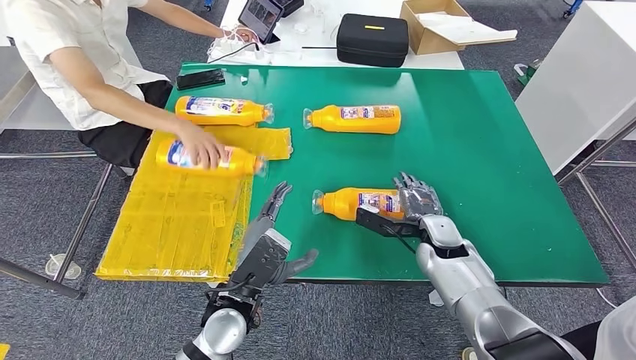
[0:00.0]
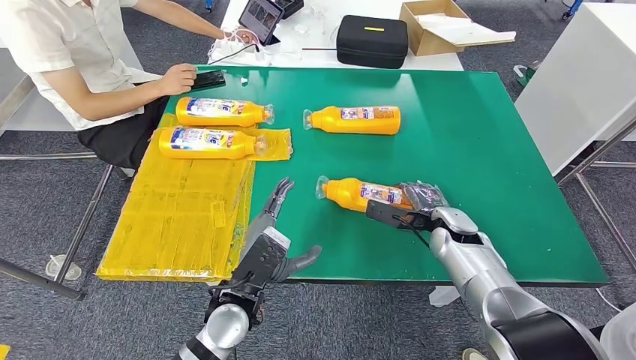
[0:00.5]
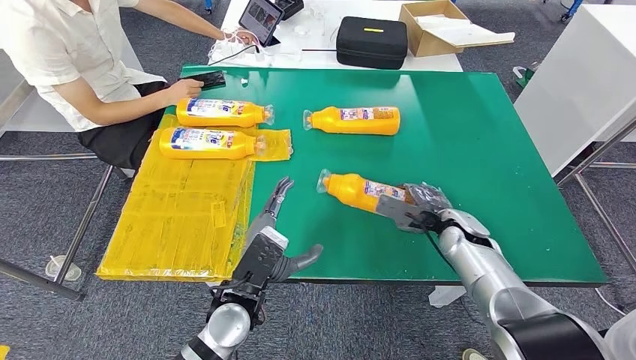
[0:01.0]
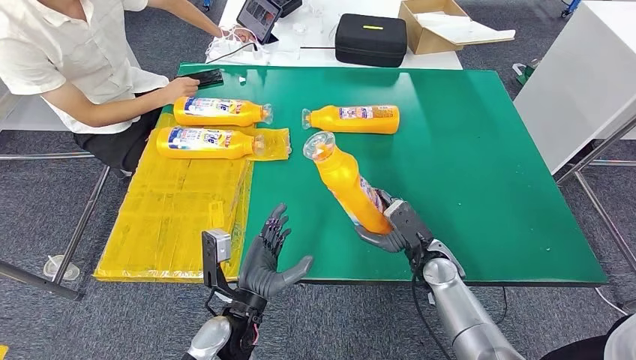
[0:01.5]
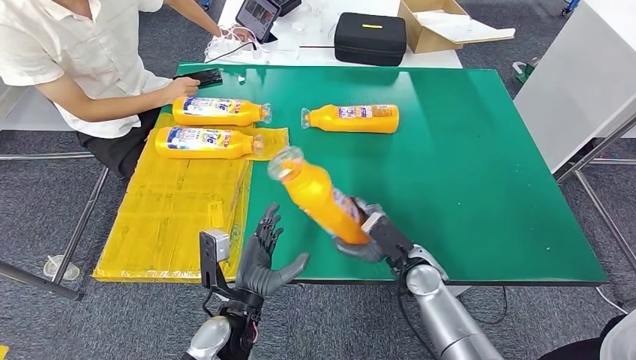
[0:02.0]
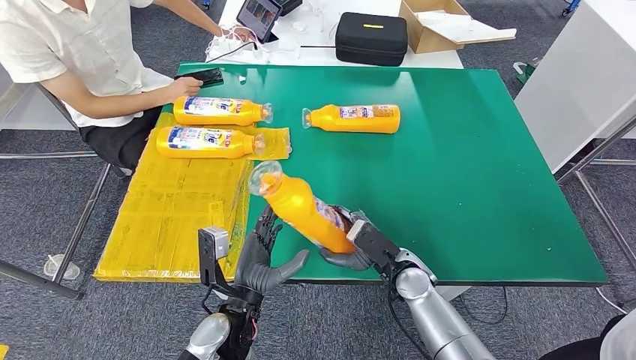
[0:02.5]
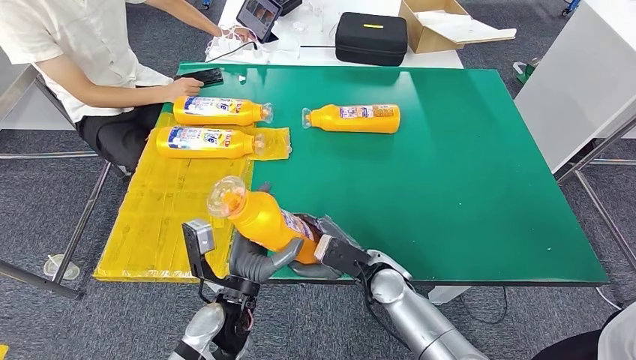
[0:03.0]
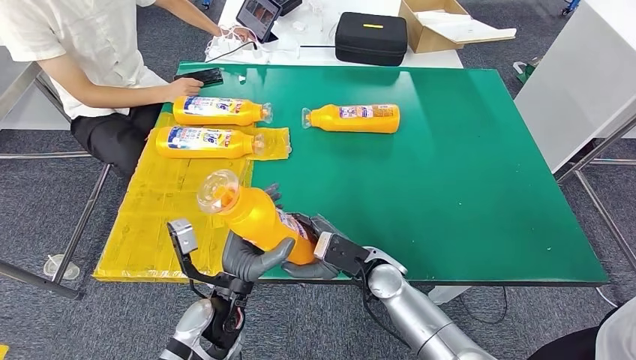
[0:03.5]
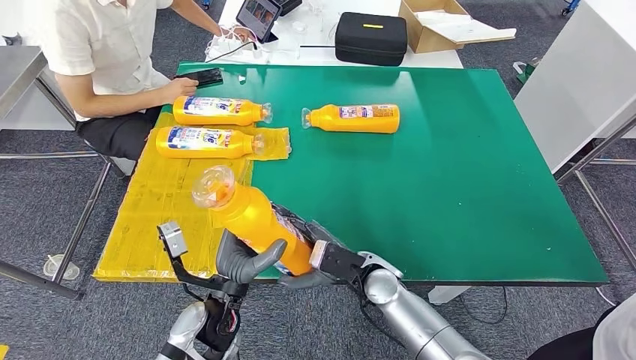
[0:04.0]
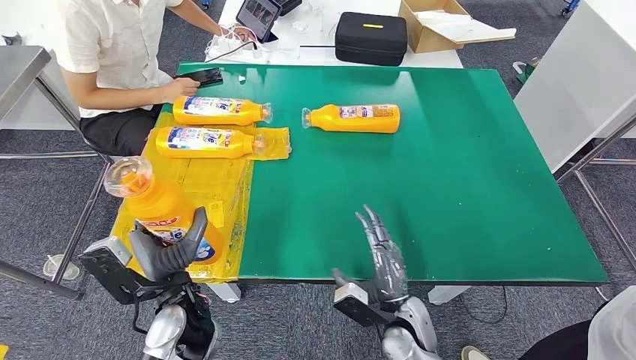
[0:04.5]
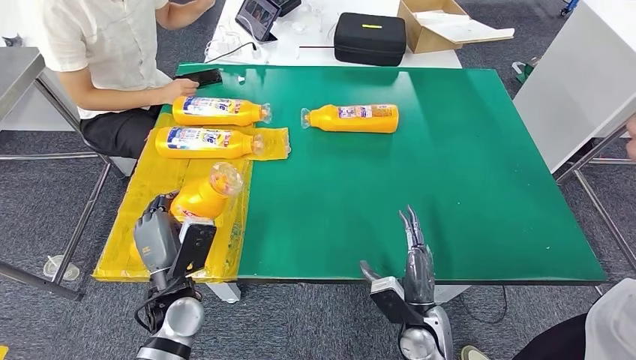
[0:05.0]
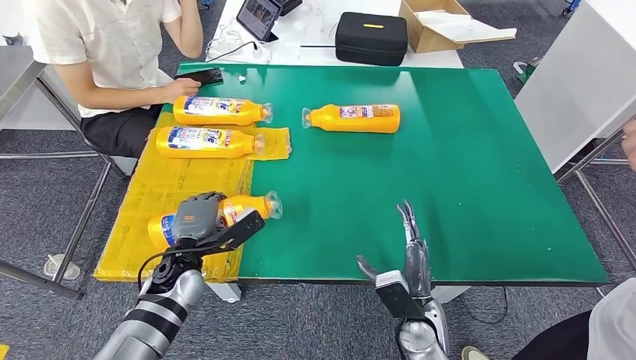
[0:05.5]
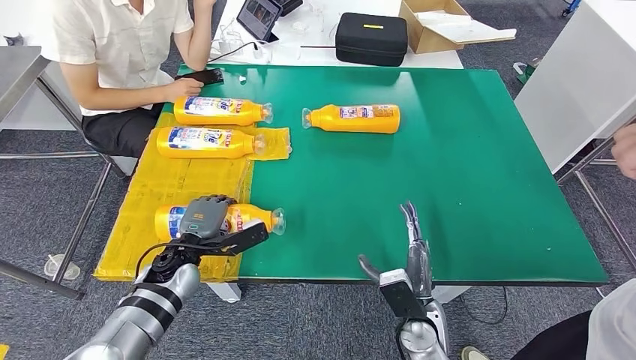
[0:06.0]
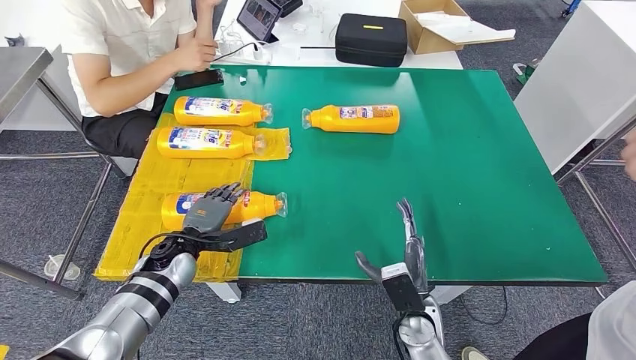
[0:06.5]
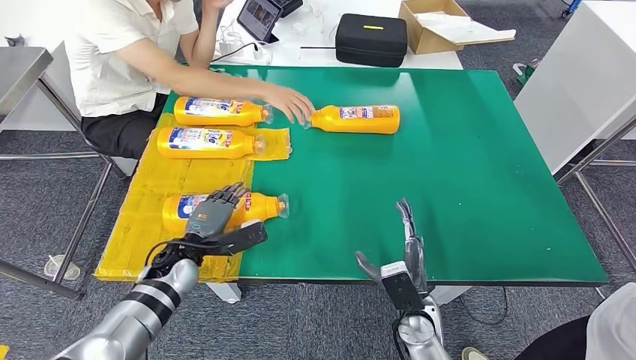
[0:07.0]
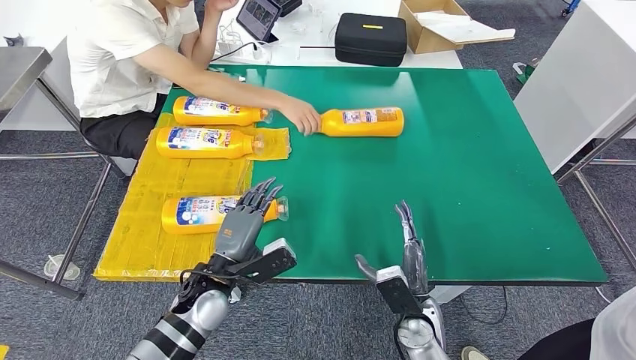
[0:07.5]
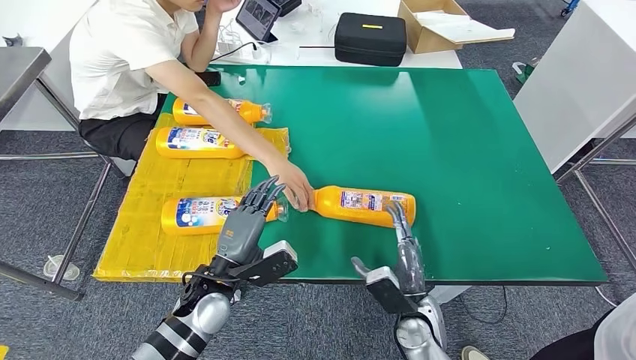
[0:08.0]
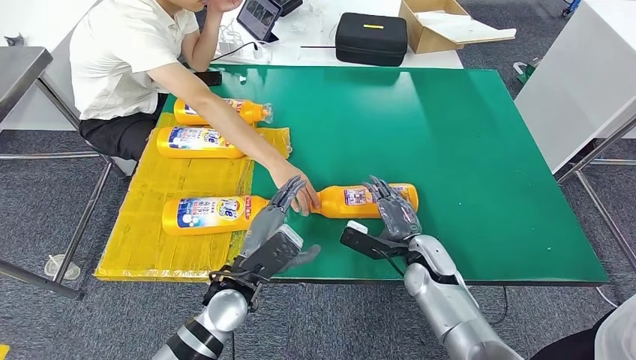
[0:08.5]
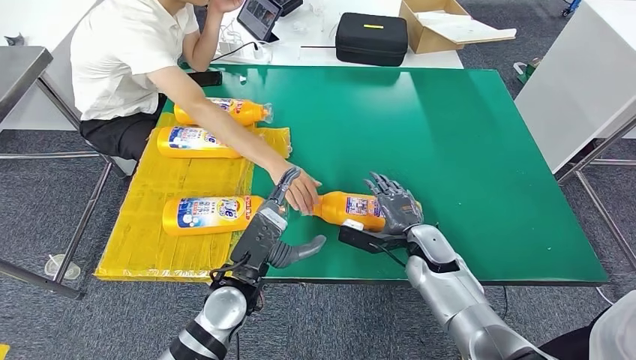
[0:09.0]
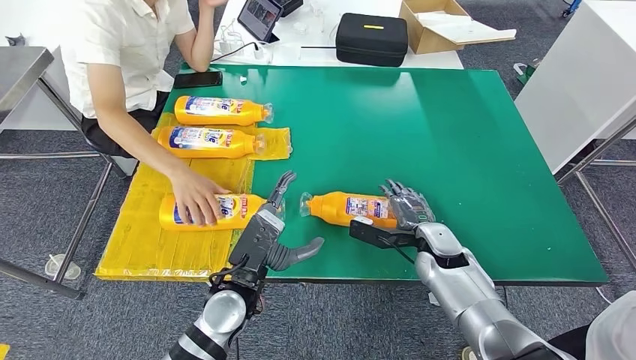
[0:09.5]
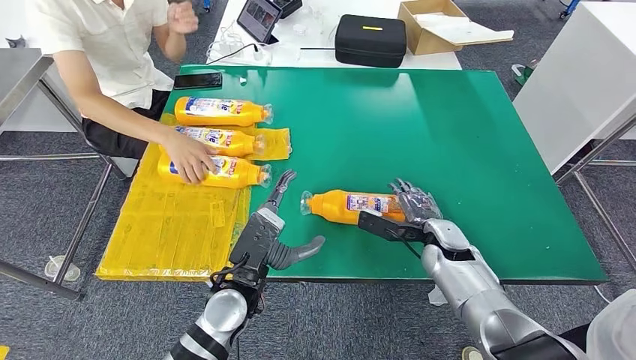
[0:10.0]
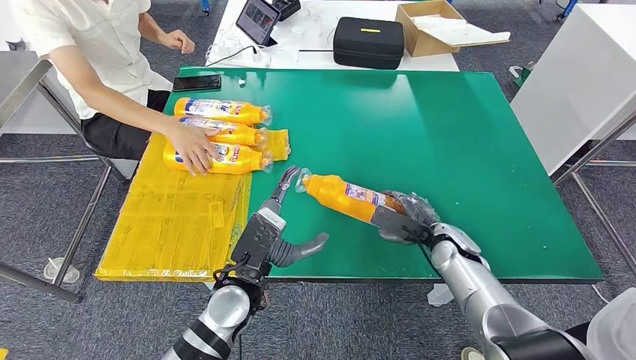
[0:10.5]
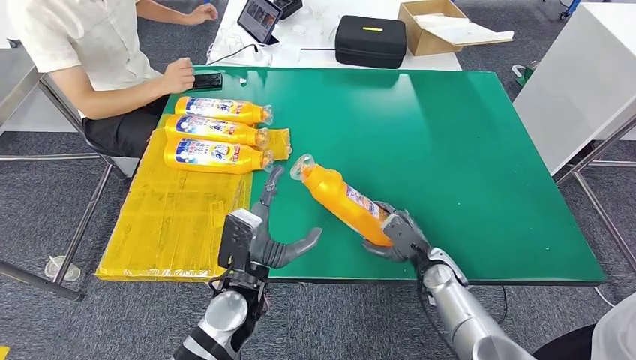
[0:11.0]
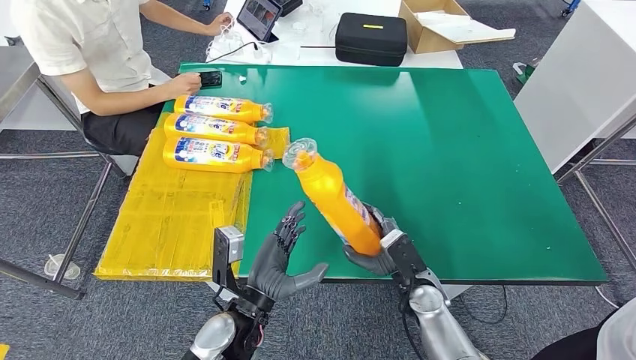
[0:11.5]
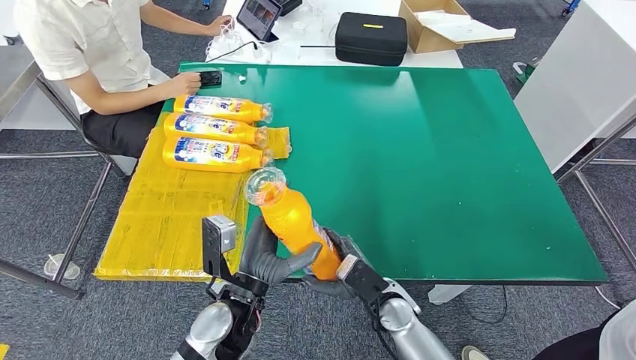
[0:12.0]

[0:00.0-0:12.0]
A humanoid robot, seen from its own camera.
Step, 0:01.5 to 0:02.5: Pick up the fast-moving consumer goods bottle from the table.
Step, 0:03.0 to 0:05.5: Flip the fast-moving consumer goods bottle to the front side.
Step, 0:08.0 to 0:10.5: Pick up the fast-moving consumer goods bottle from the table.
0:02.0 to 0:04.0: The right hand travels to the left by some 10 cm.
0:04.0 to 0:06.0: The right hand moves to the right and backward, about 10 cm. Meanwhile the left hand goes about 15 cm to the left and forward.

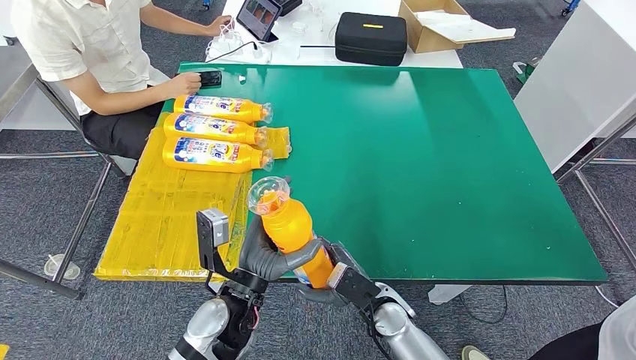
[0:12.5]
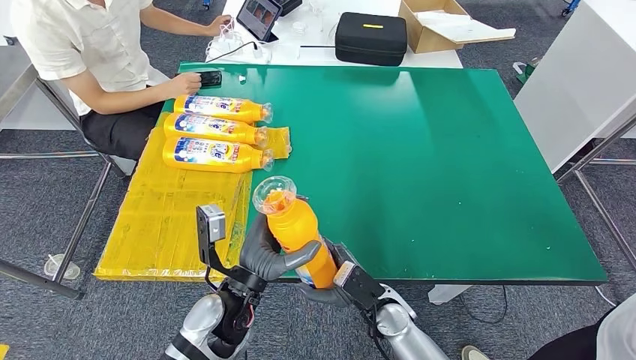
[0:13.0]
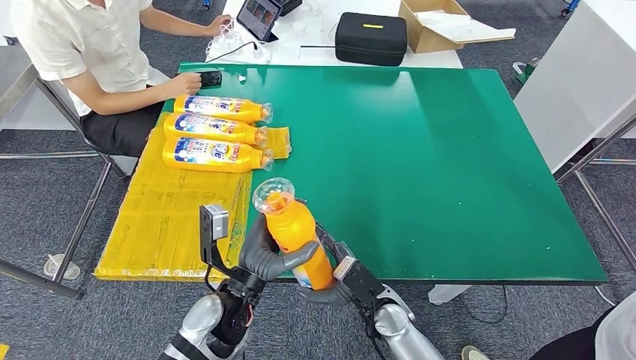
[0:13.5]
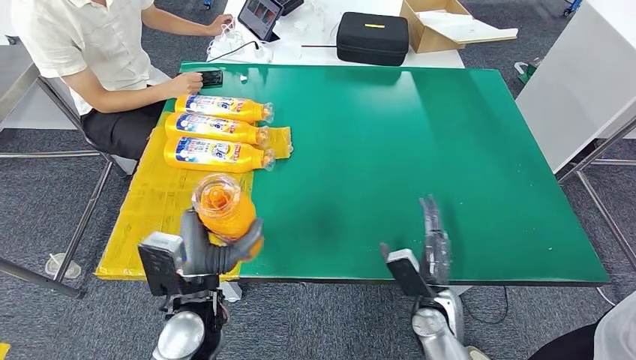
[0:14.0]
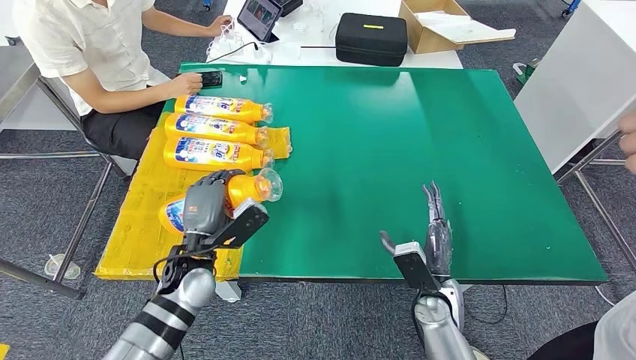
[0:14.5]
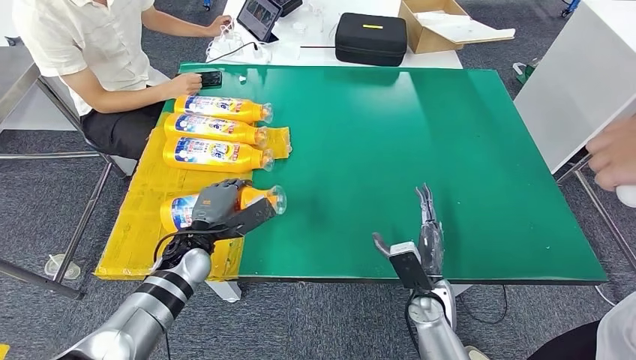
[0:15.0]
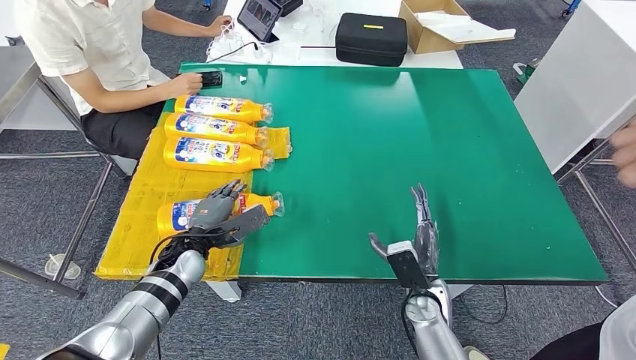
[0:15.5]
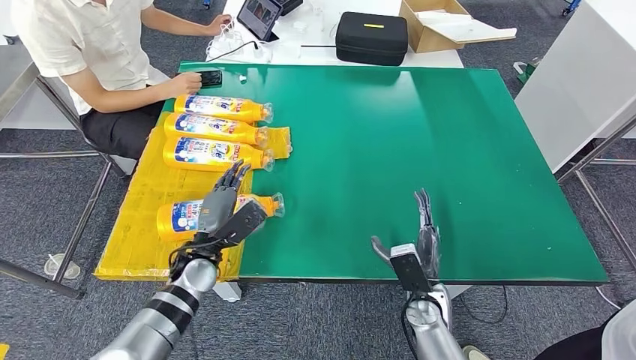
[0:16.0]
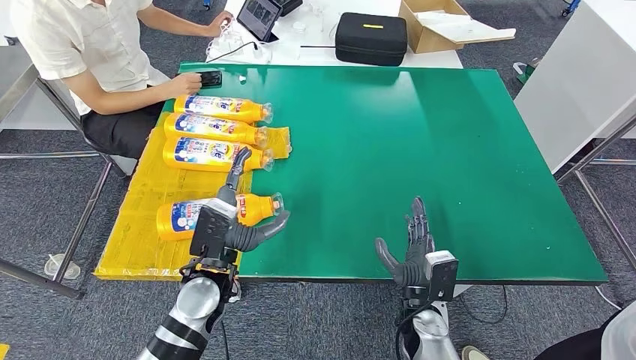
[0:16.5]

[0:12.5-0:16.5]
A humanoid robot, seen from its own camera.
Step, 0:12.5 to 0:16.5: Flip the fast-moving consumer goods bottle to the front side.
0:12.5 to 0:14.5: The left hand shifts approximately 10 cm to the left and forward. The right hand moves to the right, roughly 10 cm.
0:14.5 to 0:16.5: The left hand changes place by about 5 cm.

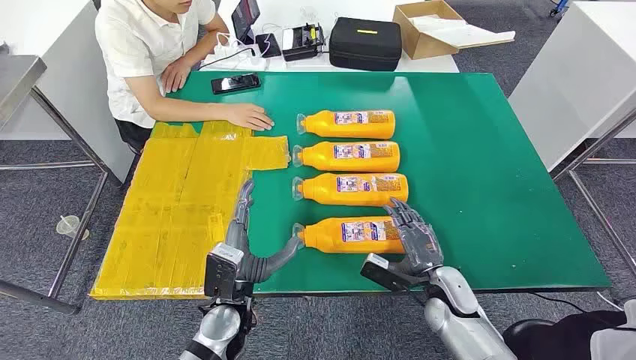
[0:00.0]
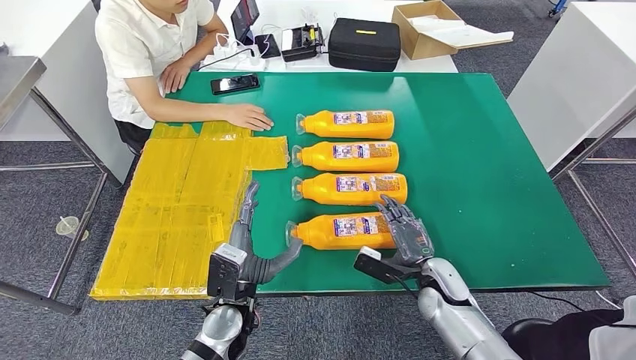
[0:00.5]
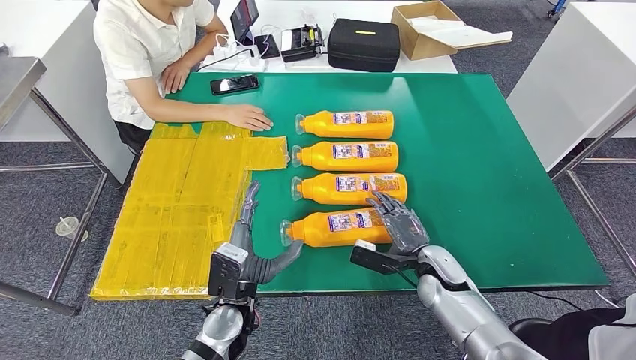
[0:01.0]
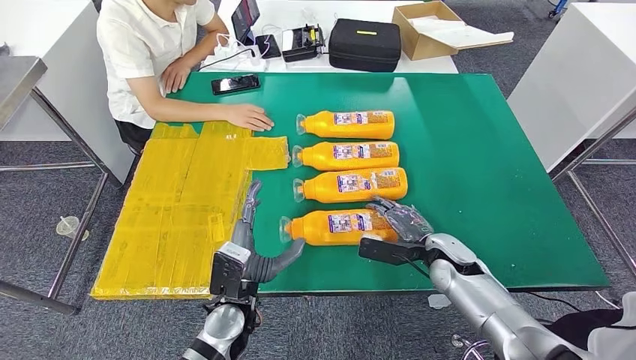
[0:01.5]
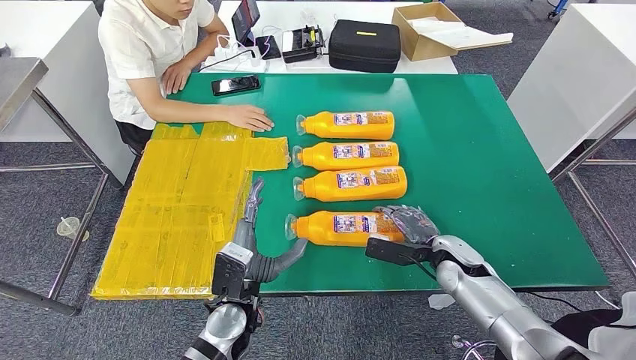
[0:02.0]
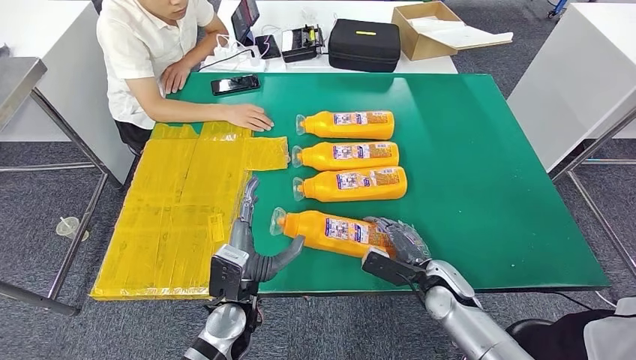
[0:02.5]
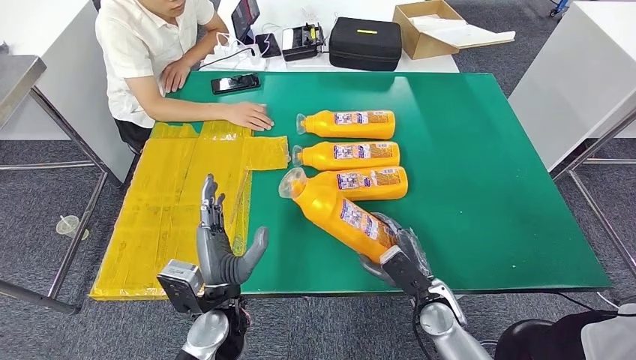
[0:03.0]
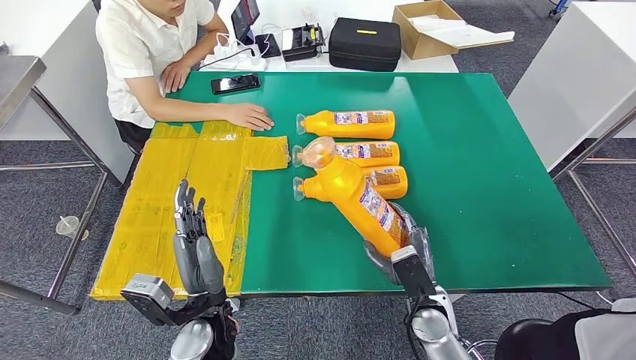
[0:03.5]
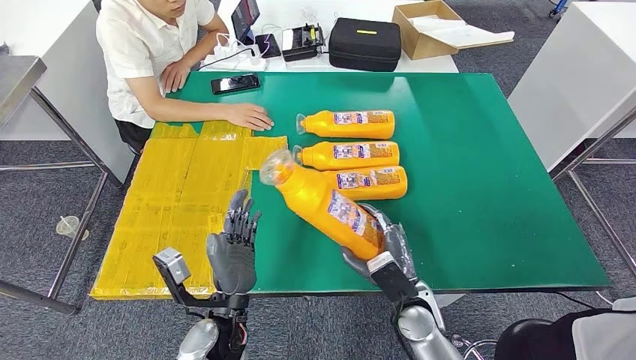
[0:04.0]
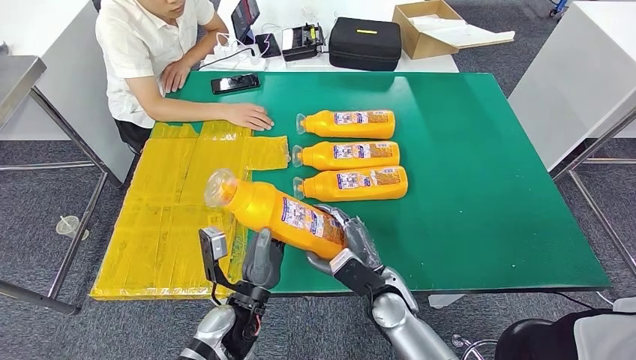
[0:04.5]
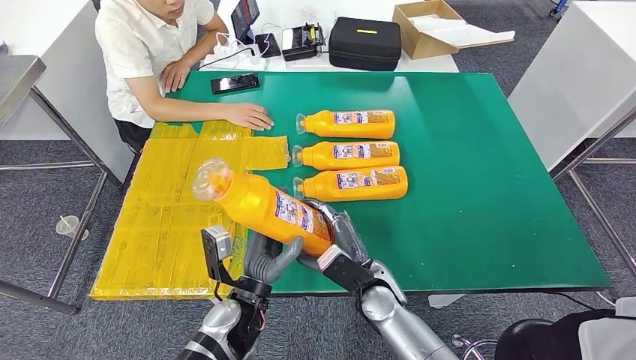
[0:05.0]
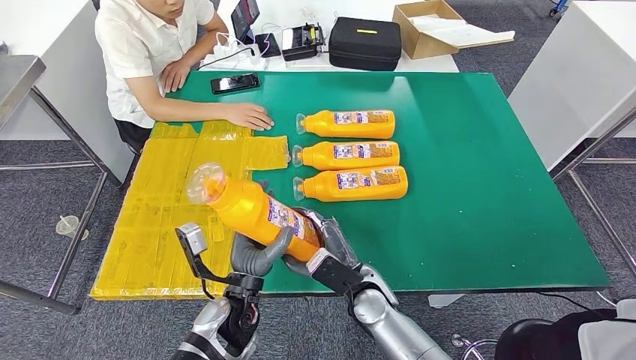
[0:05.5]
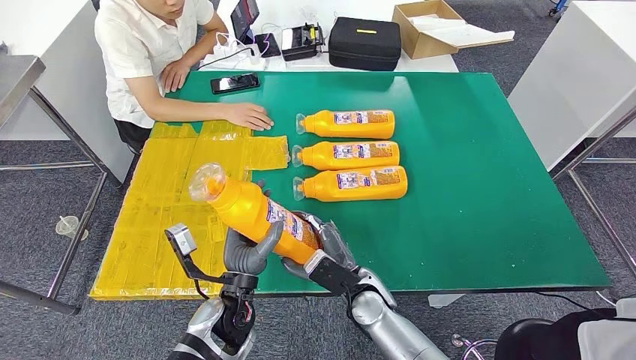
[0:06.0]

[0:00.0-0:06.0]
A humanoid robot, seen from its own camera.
Step, 0:00.0 to 0:03.0: Take the fast-moving consumer goods bottle from the table.
0:02.0 to 0:04.0: The right hand shifts some 15 cm to the left and backward.
0:04.0 to 0:06.0: The right hand heads to the left, covering approximately 10 cm.
